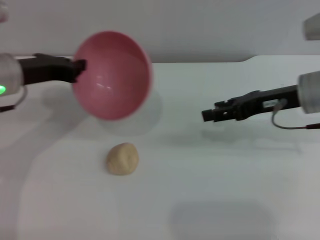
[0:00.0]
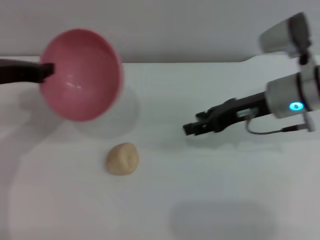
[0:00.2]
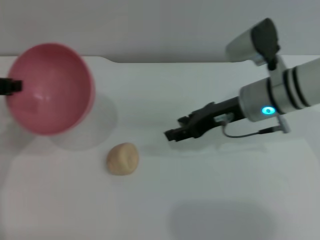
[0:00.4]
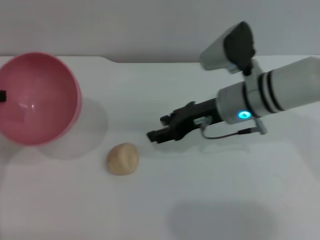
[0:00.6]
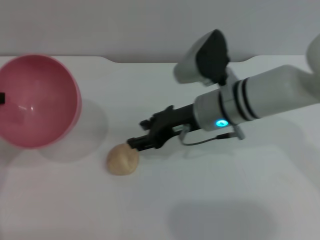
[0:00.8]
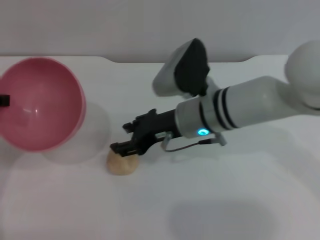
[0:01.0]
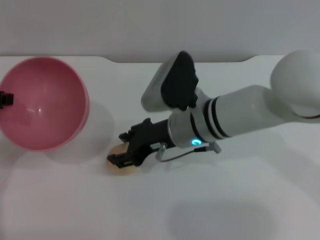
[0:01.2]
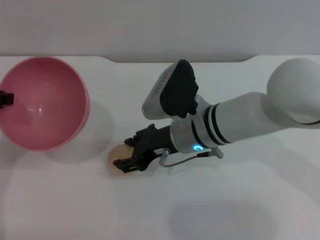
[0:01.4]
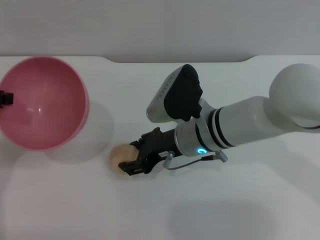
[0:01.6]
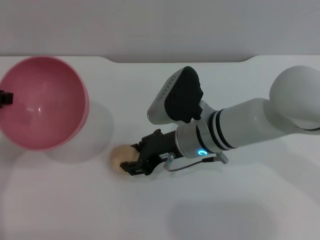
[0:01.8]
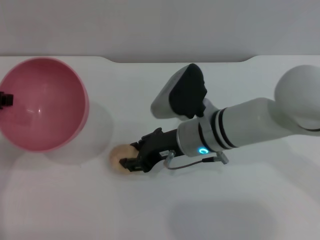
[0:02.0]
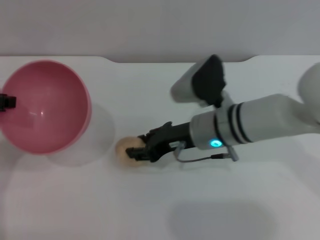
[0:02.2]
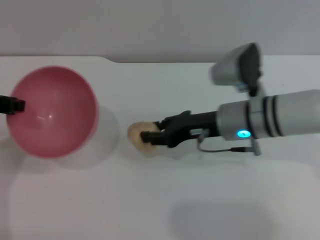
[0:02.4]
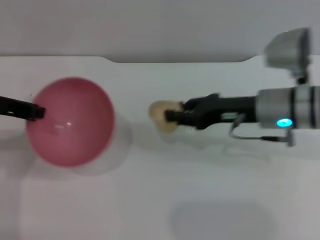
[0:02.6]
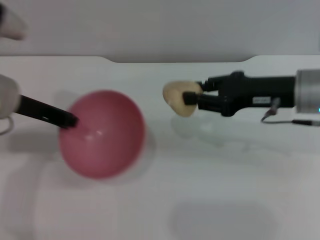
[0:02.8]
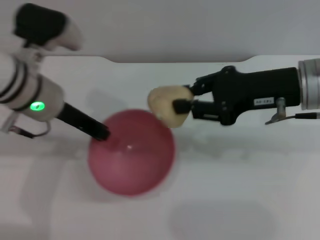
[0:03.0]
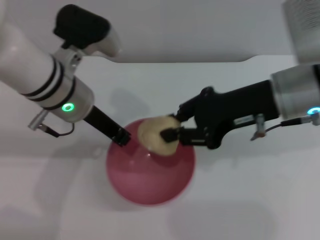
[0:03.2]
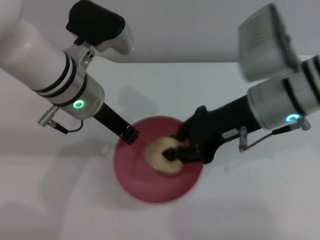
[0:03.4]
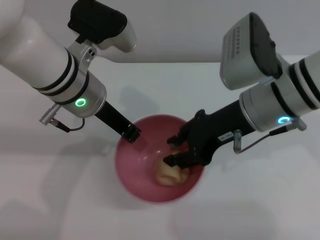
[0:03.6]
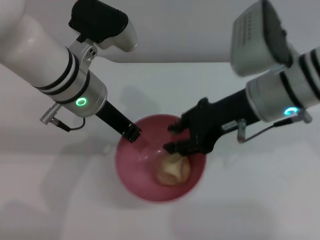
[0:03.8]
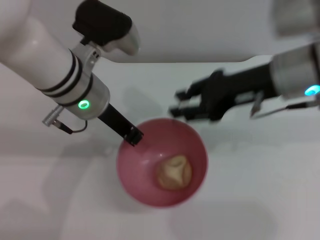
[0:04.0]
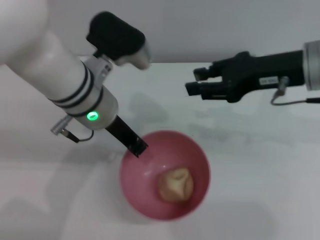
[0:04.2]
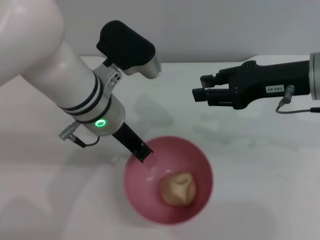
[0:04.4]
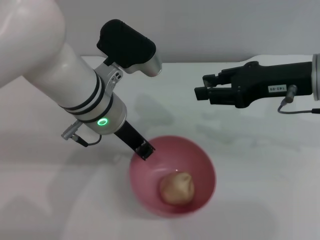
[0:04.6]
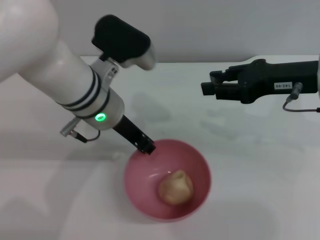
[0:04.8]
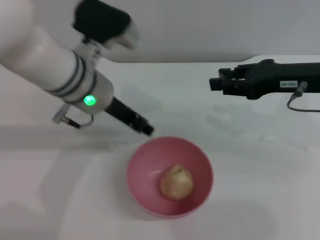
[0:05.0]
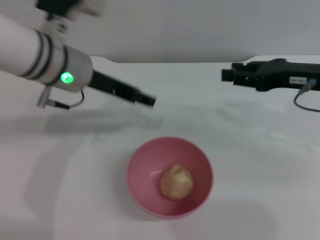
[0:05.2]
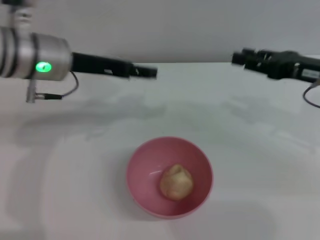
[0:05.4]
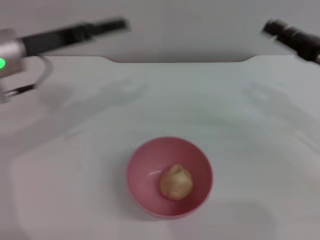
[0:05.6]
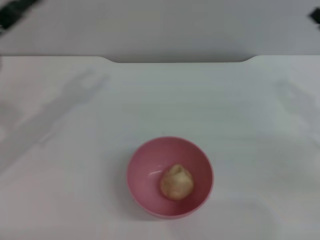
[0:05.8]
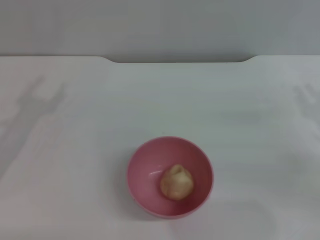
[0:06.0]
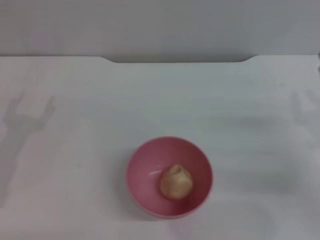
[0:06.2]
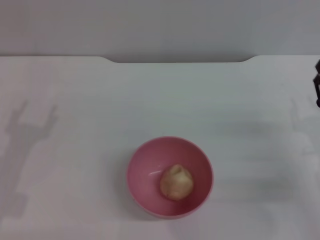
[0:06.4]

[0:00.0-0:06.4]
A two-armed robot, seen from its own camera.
Task of the whole recording: put the egg yolk pastry into the pink bowl and pour it out repeatedly.
Step, 0:00.0 to 0:02.4: Pick up the egg yolk pastry with the right gripper.
Step, 0:02.6 to 0:04.0: Place the egg yolk pastry into the bowl.
Step, 0:04.2 to 0:05.2: Place the bowl on the table.
0:00.0 to 0:01.6: The left gripper is displaced to the left and backward by about 10 cm. Meanwhile the right gripper moves to the left, about 15 cm.
0:01.6 to 0:03.2: The right gripper heads upward and to the right, covering roughly 15 cm, and closes up; the left gripper shifts about 15 cm to the right.
0:03.2 to 0:04.8: The right gripper moves to the right, some 5 cm, and opens up.
0:04.8 to 0:06.4: The right gripper is displaced downward, backward and to the right by some 20 cm, while the left gripper shifts roughly 25 cm to the left, backward and downward, and opens.
